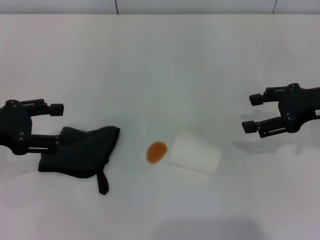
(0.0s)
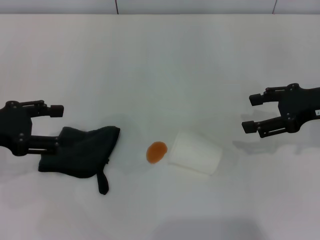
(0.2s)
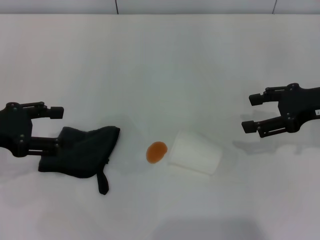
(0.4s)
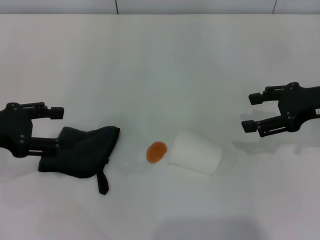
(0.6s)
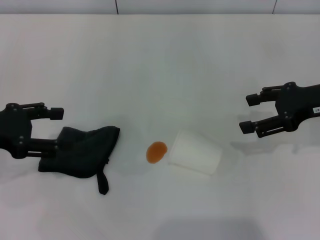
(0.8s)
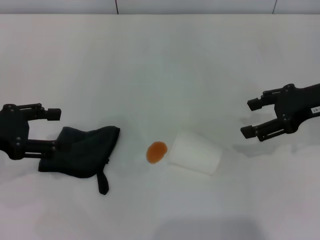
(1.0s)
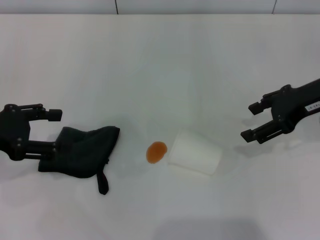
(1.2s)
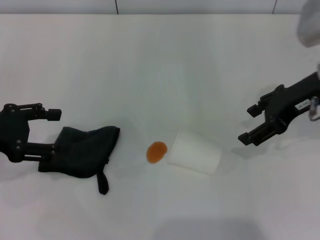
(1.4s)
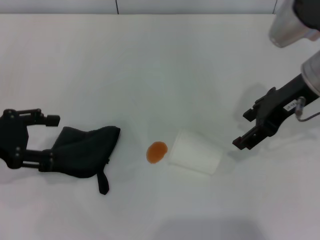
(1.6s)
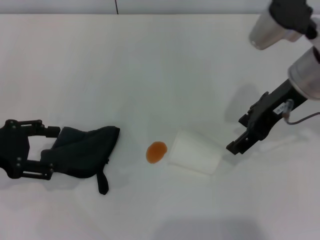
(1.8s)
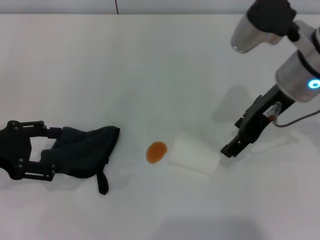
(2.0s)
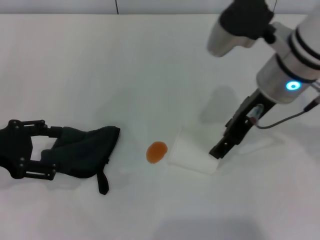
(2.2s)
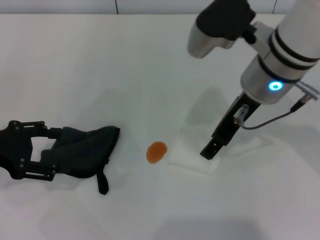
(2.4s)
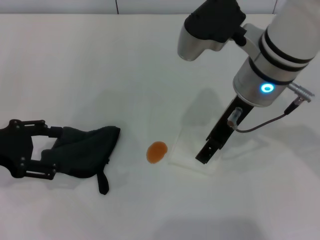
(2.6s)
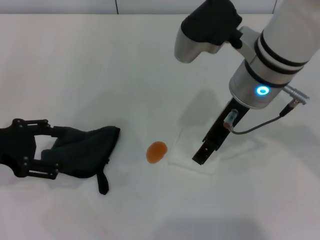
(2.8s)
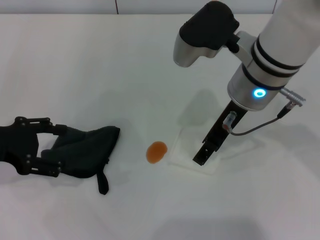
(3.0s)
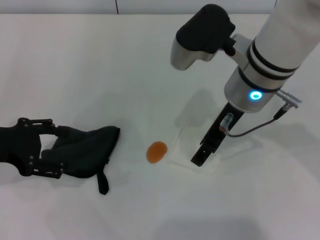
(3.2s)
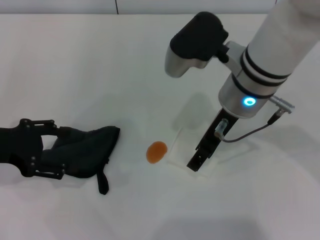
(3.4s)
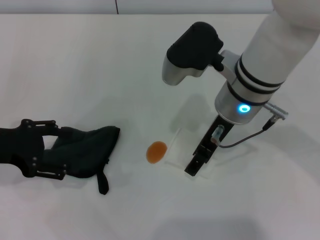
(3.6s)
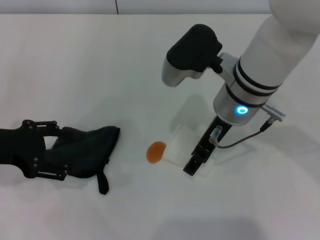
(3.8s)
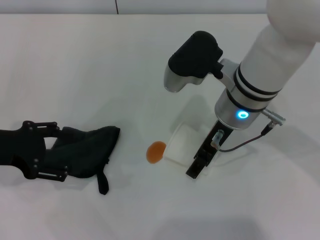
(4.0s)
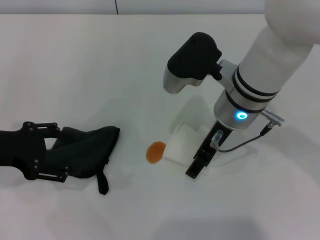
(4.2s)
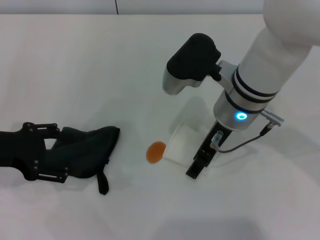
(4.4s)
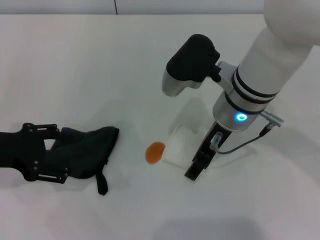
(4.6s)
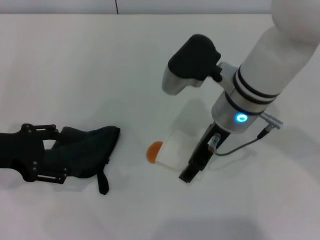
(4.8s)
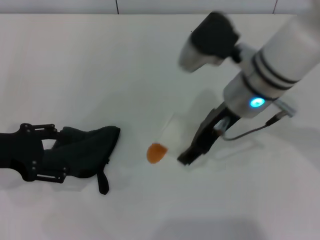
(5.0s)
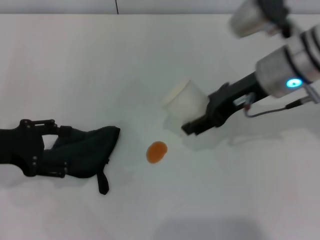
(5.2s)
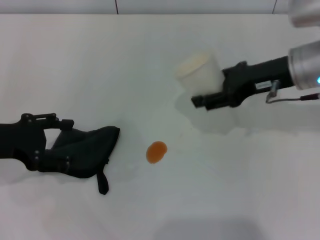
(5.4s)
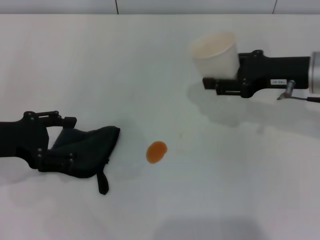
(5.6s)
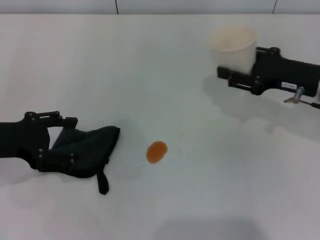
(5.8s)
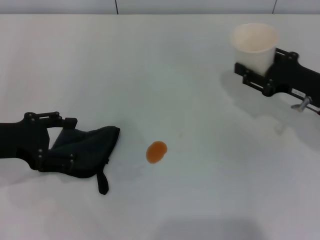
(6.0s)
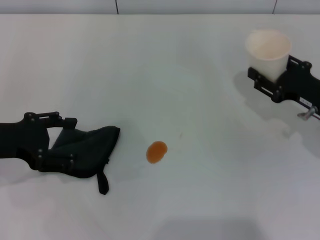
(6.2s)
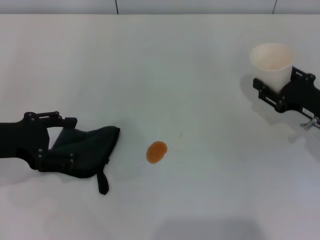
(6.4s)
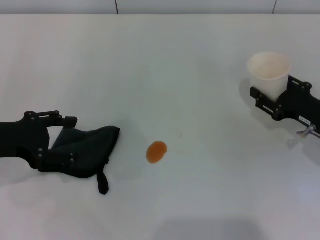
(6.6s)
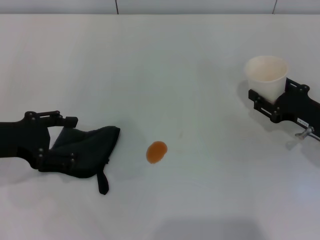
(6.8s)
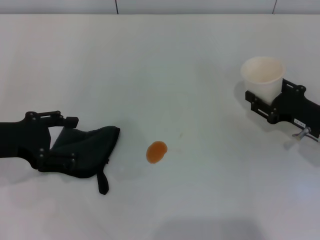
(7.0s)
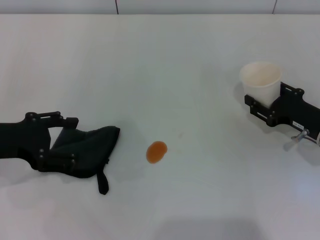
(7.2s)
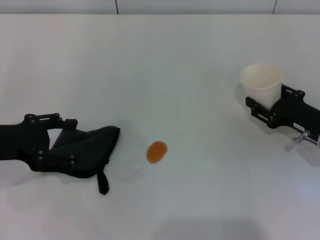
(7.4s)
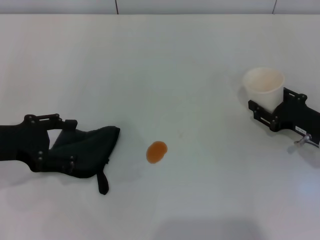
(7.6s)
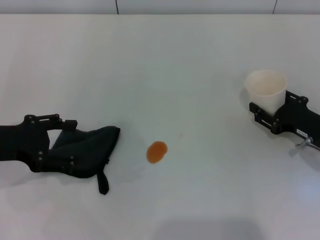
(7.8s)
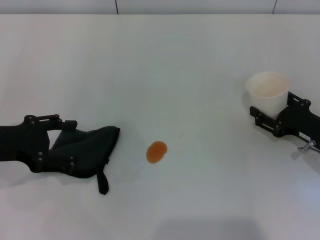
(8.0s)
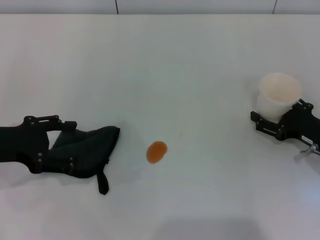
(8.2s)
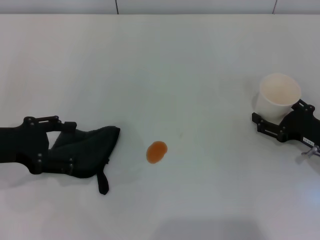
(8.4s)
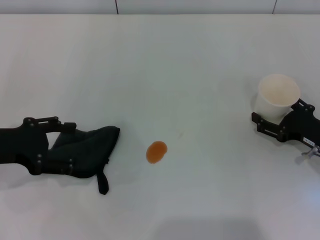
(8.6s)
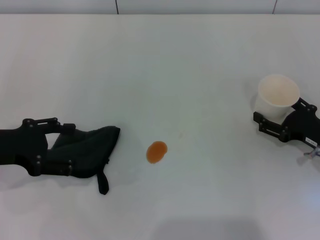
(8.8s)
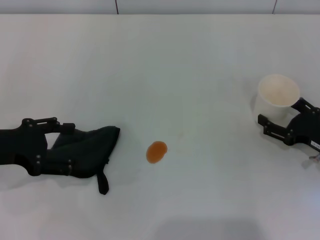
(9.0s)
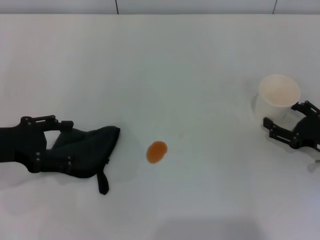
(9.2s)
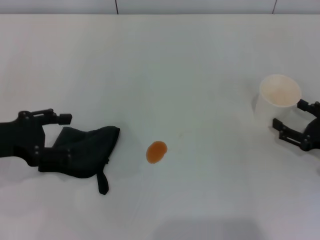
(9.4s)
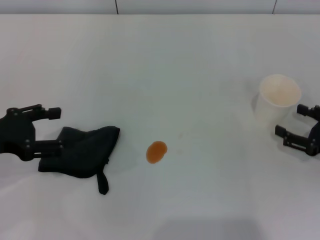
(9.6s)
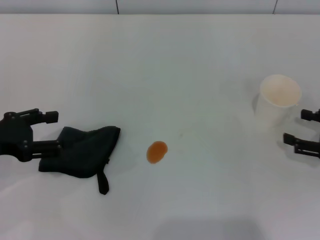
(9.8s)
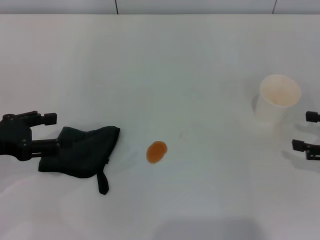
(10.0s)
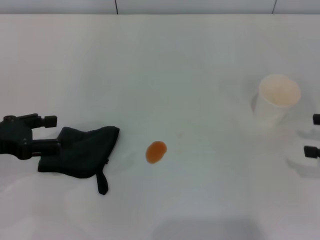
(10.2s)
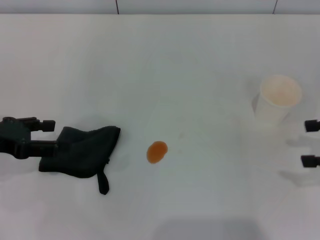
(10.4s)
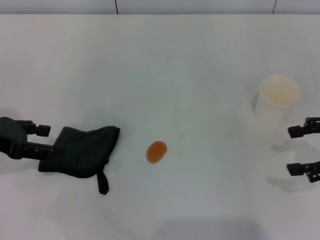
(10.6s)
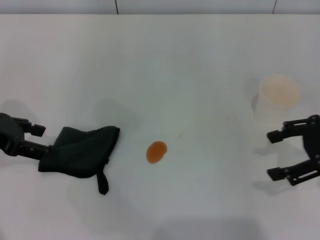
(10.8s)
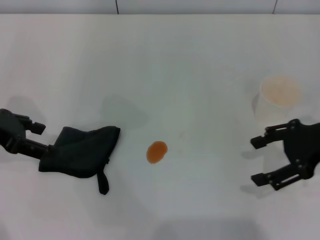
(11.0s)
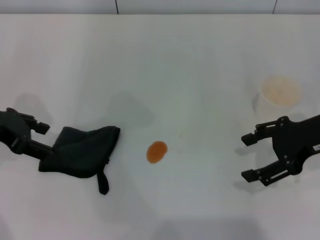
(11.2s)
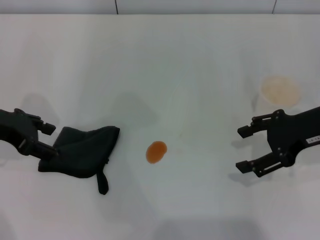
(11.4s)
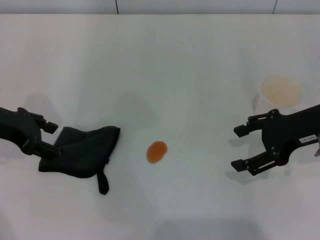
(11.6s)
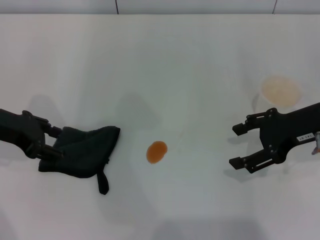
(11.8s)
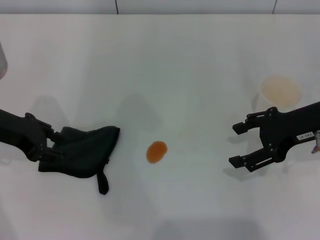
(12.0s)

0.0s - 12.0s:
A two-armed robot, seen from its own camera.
Step, 0.0s - 4.4s: Grasp the paper cup with the right gripper.
Step, 4.6s - 9.4s: Stand the paper cup upright with the right gripper.
0.0s - 1.6s: The right gripper is displaced to the left and upward by about 10 cm.
1.6s - 3.0s: The right gripper moves to the left, approximately 10 cm.
3.0s - 4.4s: The grippers make only small movements.
4.4s - 6.0s: The right gripper goes some 20 cm to the right, and closes its fingers.
6.0s - 7.6s: The right gripper goes roughly 5 cm downward.
7.6s - 9.0s: The right gripper opens.
9.0s - 10.4s: The right gripper goes approximately 15 cm upward and to the right.
10.4s - 12.0s: The right gripper goes some 15 cm to the left and forward; the left gripper is displaced forward by some 5 cm.

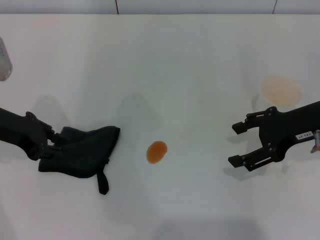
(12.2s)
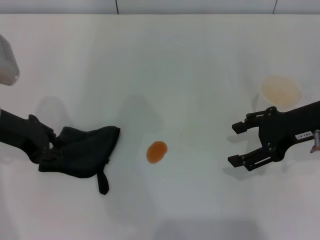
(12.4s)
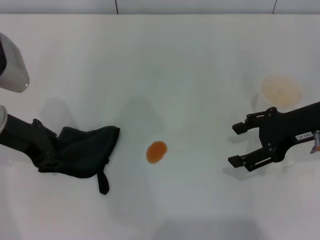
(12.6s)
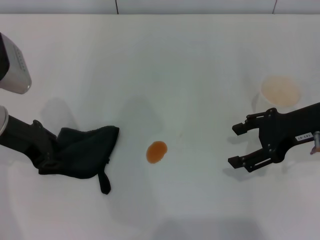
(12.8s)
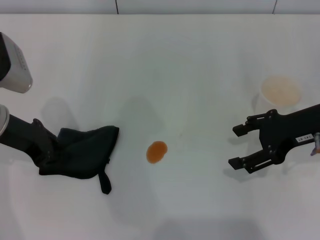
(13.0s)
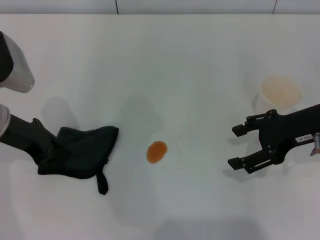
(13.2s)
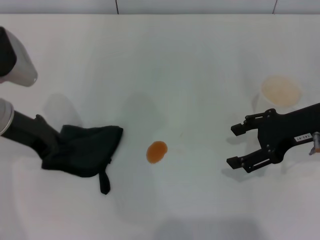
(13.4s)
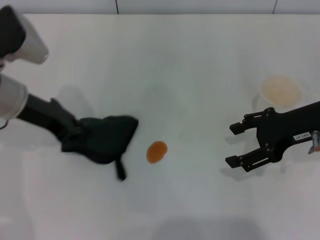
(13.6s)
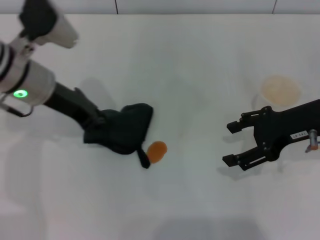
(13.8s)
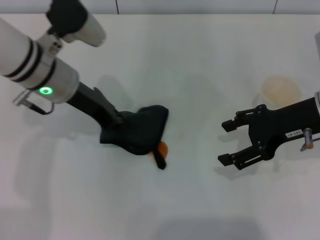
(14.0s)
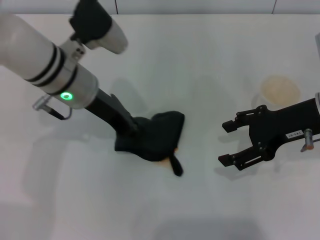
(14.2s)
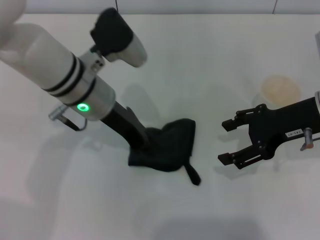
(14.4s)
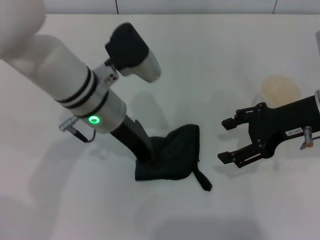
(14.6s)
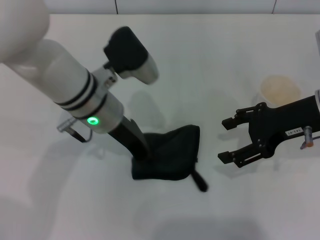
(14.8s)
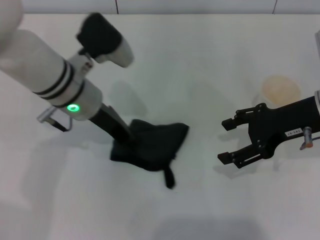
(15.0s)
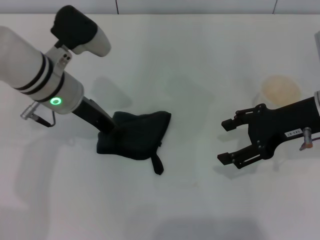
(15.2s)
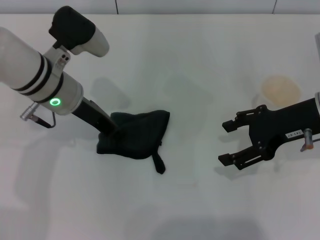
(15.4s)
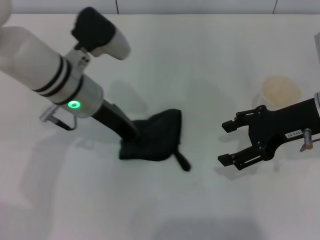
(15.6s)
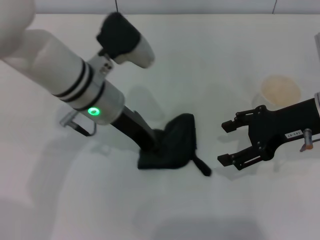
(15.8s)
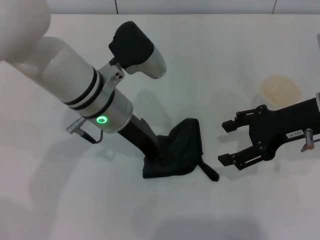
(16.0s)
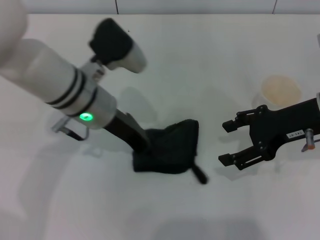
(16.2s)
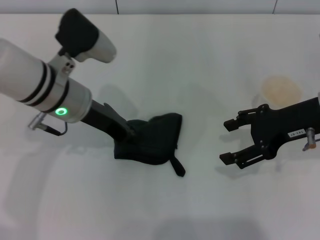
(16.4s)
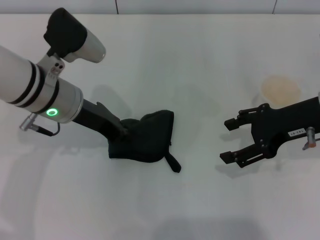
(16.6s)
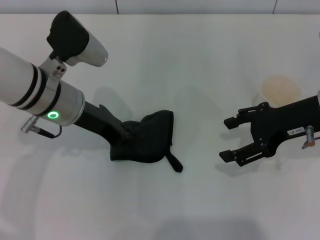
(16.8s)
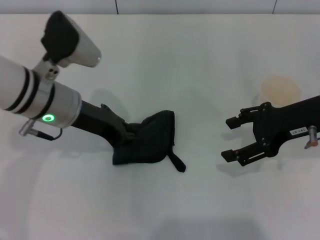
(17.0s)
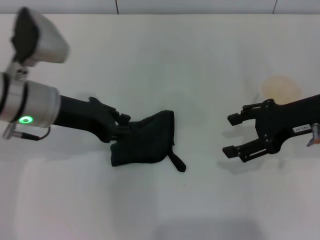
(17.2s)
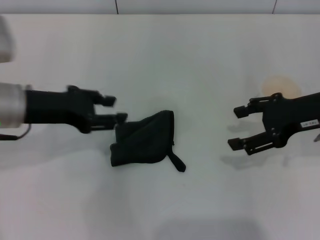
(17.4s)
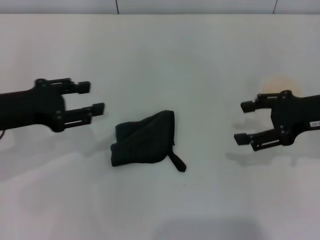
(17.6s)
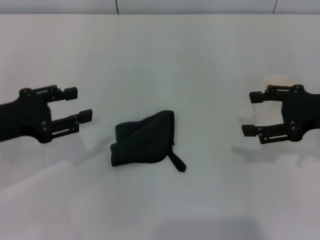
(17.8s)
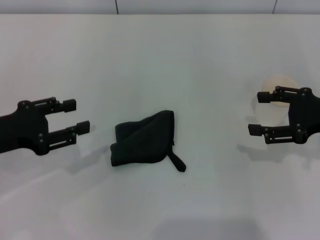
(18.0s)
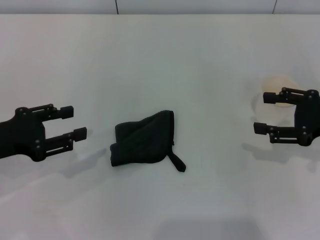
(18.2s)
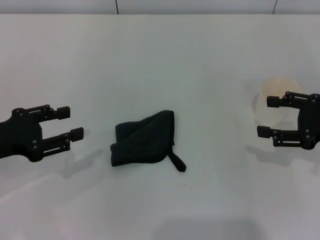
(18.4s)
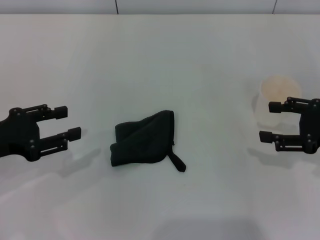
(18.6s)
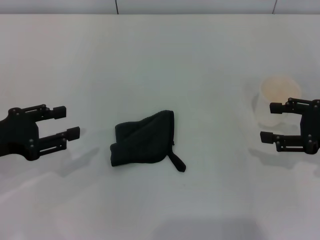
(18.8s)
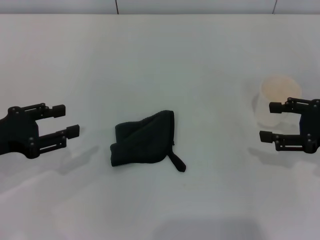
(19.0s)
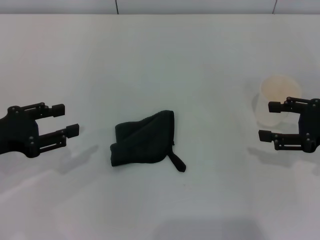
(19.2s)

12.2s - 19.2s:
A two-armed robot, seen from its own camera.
Step, 13.4s - 16.8s: Wipe the stains off the table with the left gripper.
Step, 17.0s - 17.4s: Place the rag on the table with the left gripper.
12.2s - 13.6s: The left gripper closes its fingers.
13.6s - 15.0s: The left gripper shifts roughly 10 cm to the right.
15.0s - 16.4s: There are only small adjustments of the grippers.
16.4s - 17.8s: The right gripper heads to the right, covering about 5 cm, while the left gripper is displaced to the left and backward by some 15 cm, and opens up.
17.8s - 19.2s: The grippers move only a little.

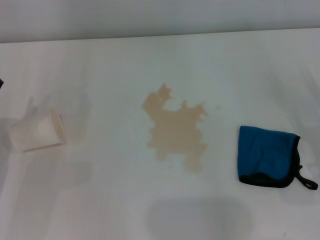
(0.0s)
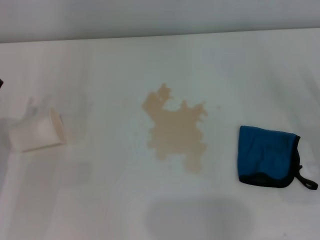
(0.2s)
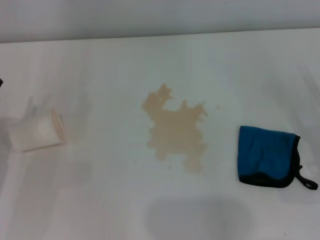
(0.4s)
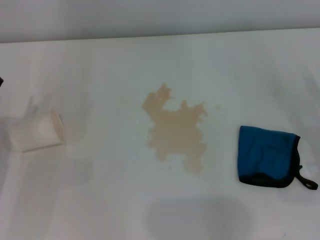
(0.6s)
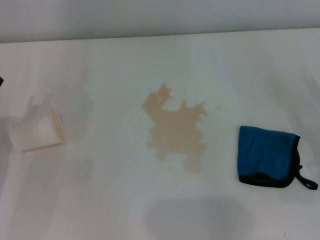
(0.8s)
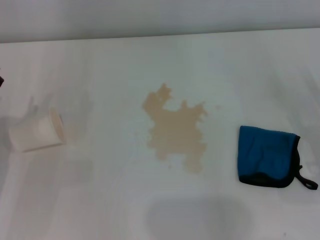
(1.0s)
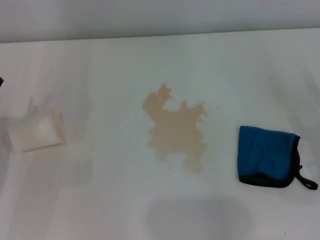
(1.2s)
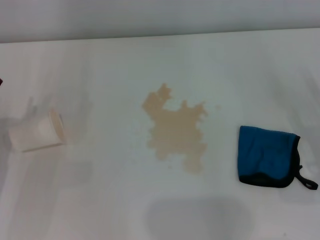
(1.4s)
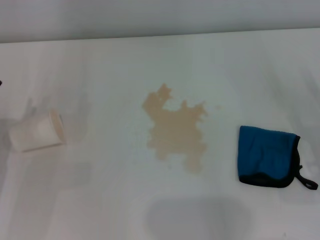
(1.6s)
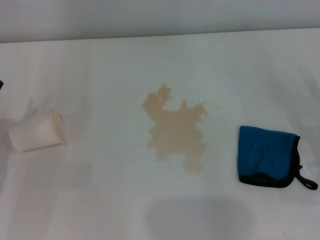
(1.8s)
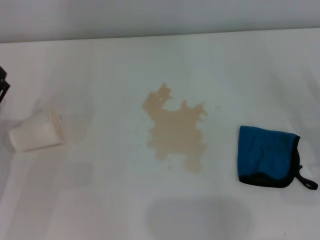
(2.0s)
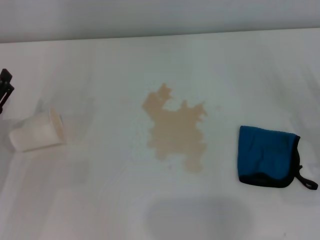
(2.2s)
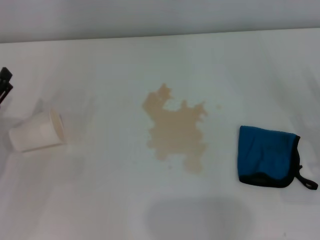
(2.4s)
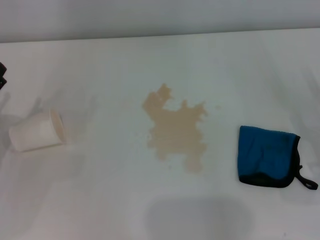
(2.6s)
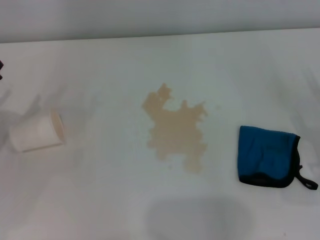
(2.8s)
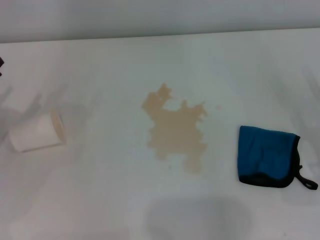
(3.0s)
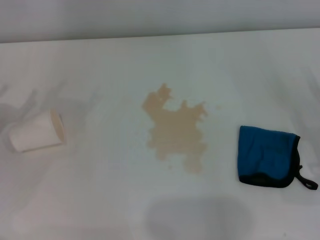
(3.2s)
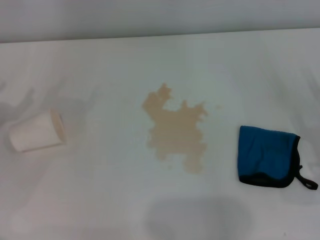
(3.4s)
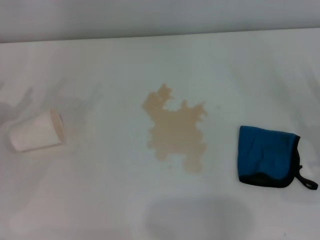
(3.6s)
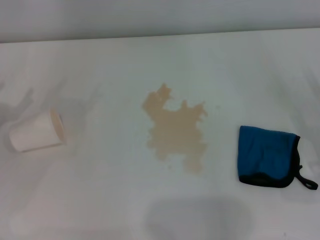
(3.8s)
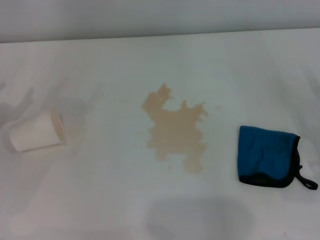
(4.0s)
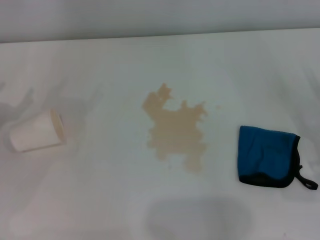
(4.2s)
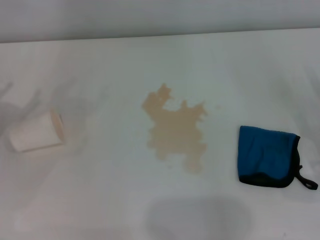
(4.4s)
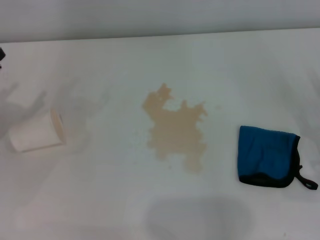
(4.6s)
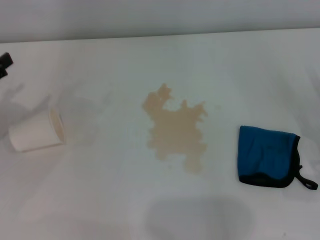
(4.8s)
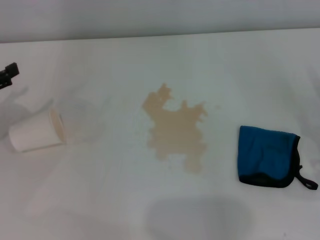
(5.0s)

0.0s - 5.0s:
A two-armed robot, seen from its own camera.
0.0s - 1.6s: Both grippers stay put.
